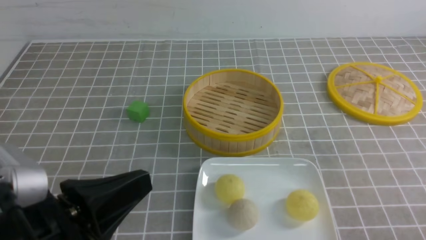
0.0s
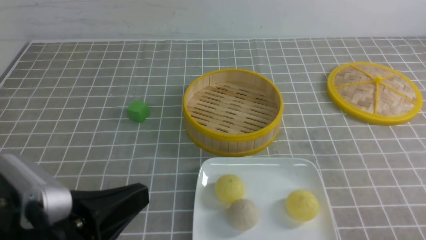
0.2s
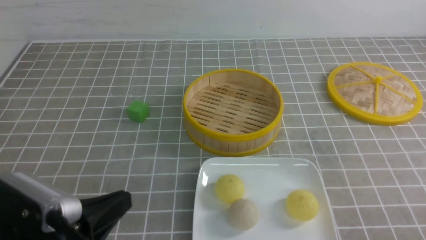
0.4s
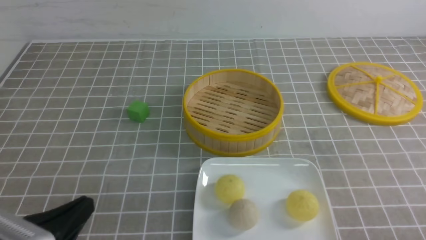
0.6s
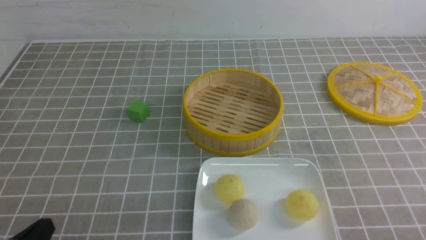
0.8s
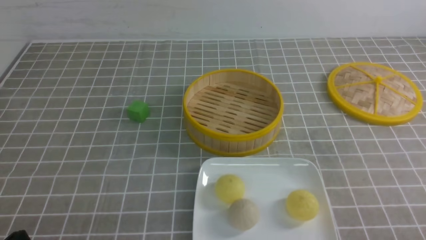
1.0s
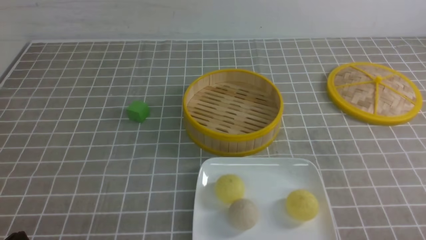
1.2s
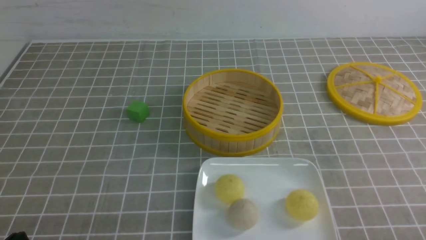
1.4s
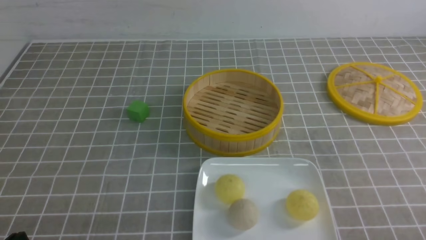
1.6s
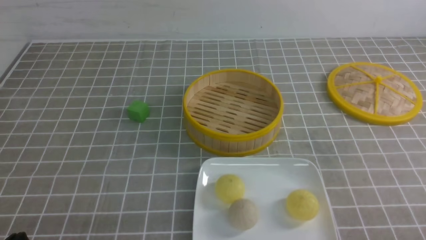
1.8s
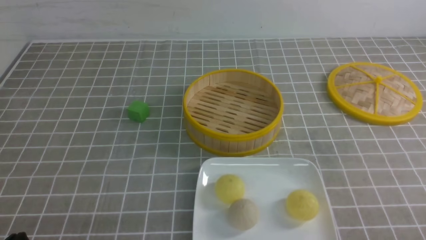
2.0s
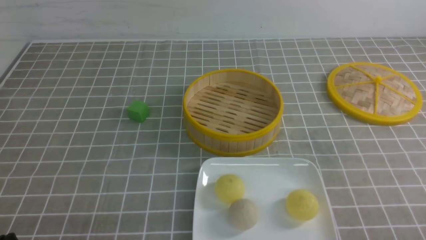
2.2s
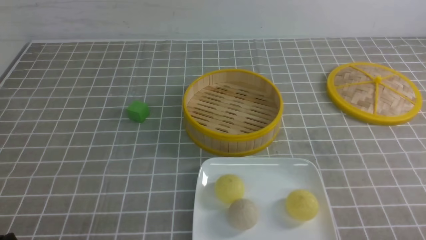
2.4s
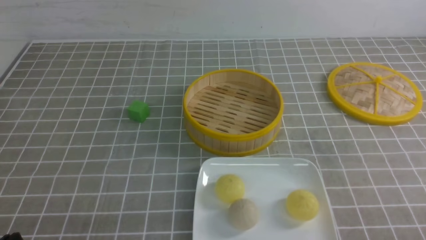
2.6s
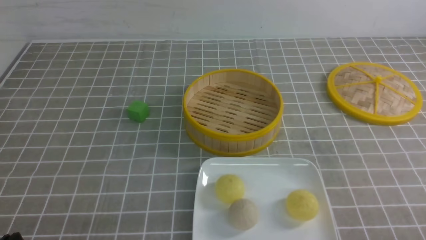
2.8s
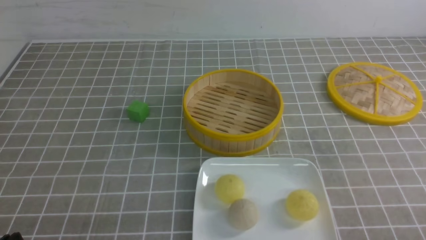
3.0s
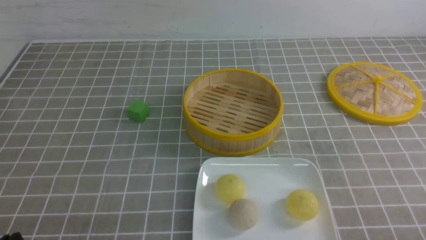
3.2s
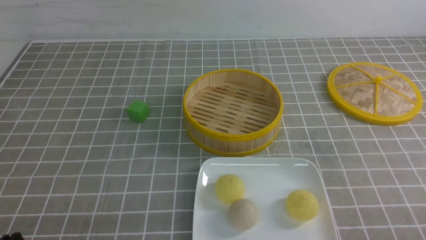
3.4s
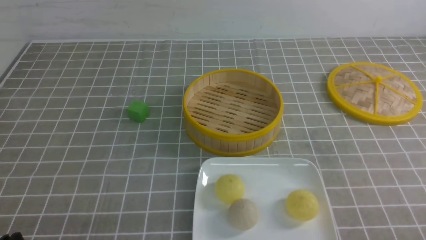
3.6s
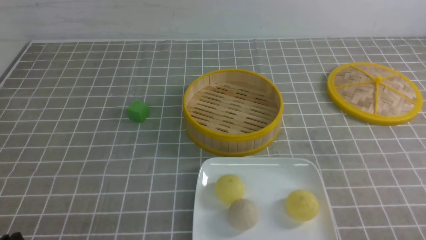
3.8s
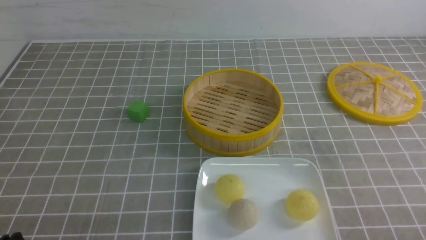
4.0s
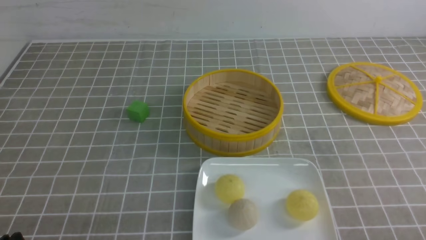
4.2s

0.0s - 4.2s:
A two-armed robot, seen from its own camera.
0.0s - 1.4s: The left gripper heads downward and to the left, covering about 15 cm.
1.4s - 4.2s: The two grippers keep their place.
